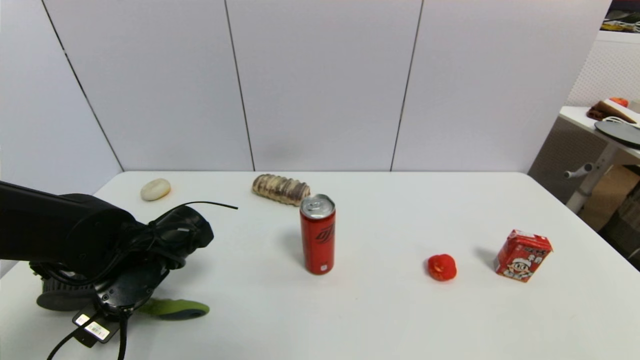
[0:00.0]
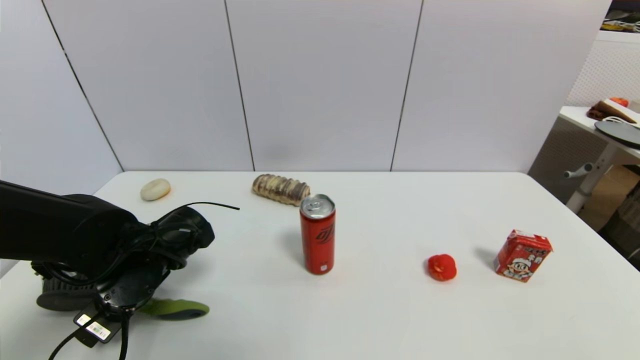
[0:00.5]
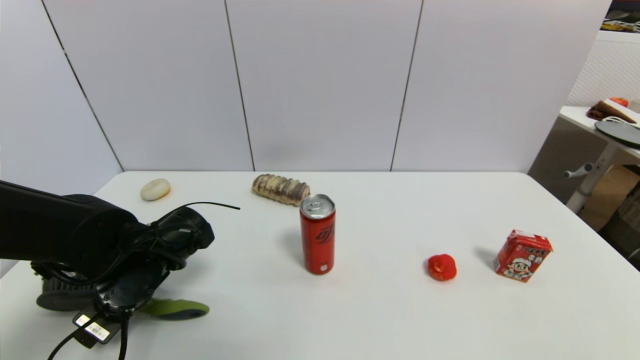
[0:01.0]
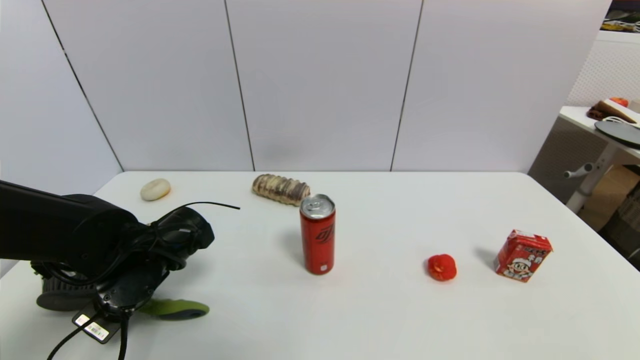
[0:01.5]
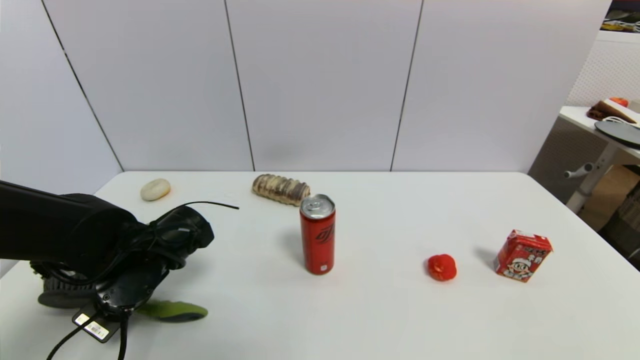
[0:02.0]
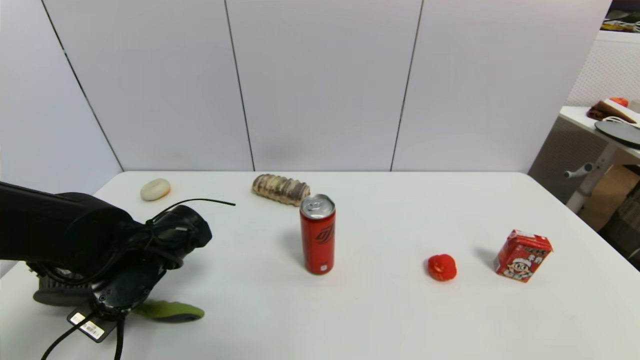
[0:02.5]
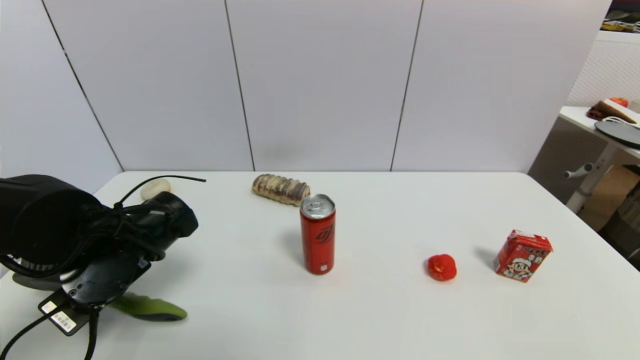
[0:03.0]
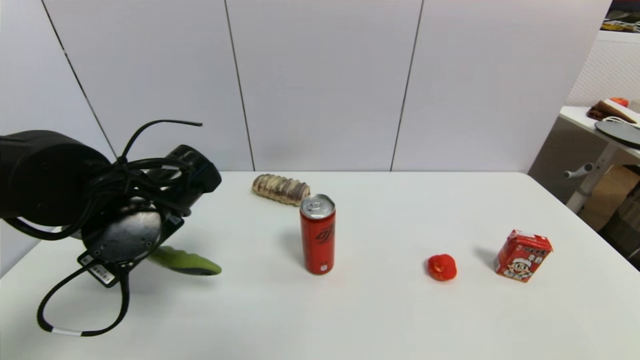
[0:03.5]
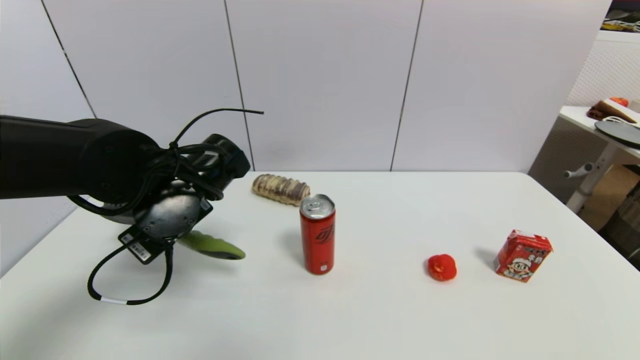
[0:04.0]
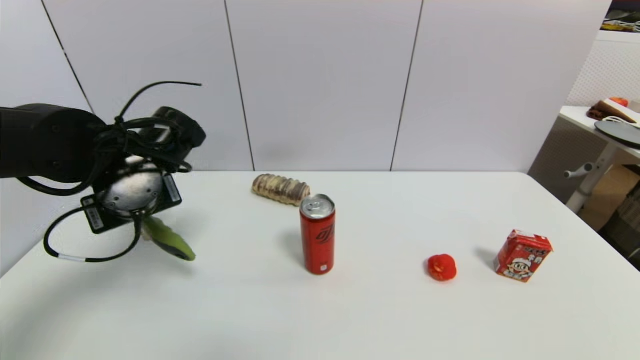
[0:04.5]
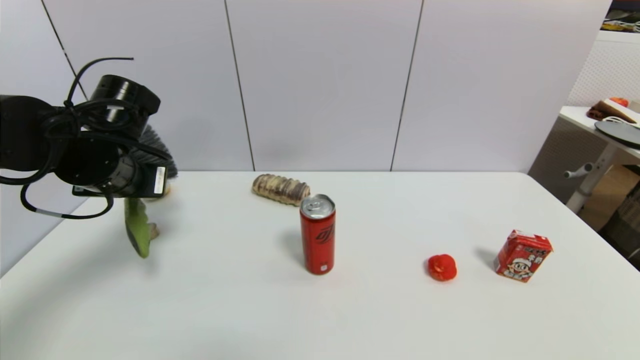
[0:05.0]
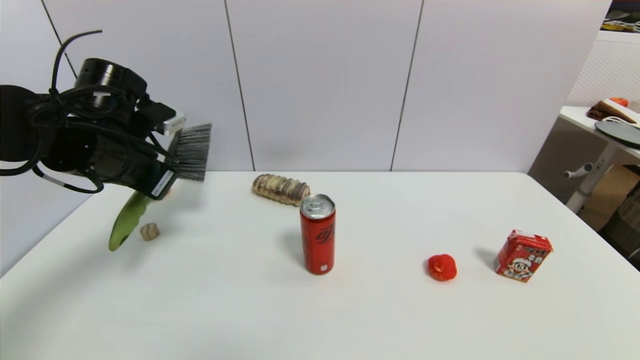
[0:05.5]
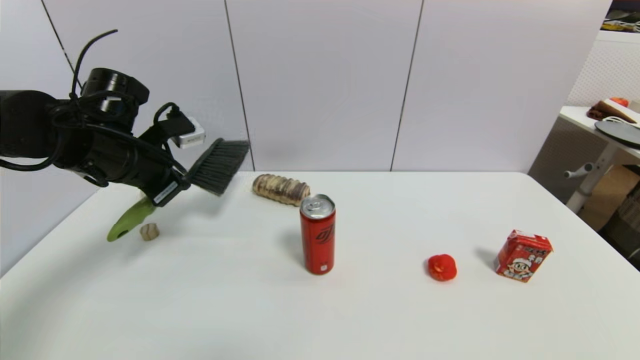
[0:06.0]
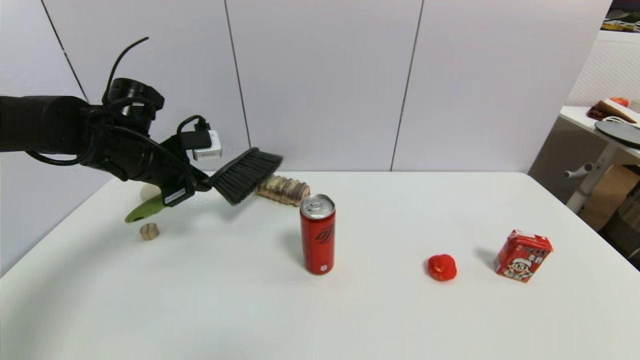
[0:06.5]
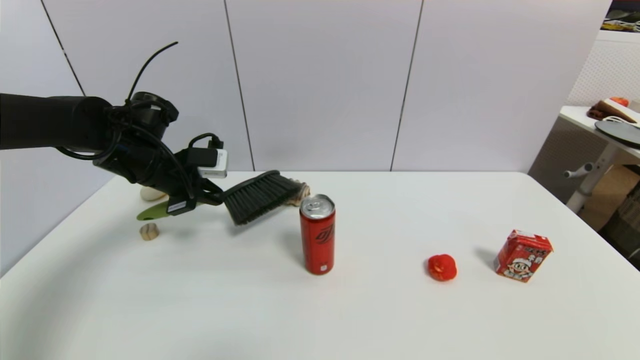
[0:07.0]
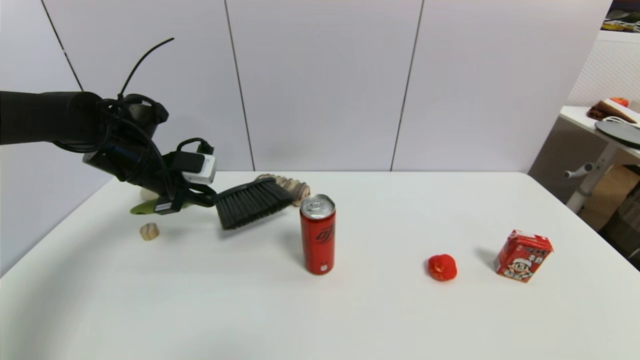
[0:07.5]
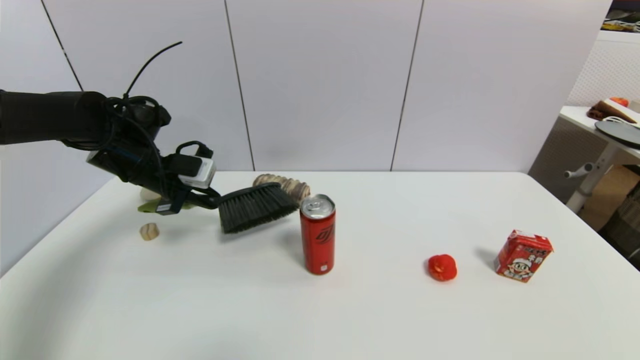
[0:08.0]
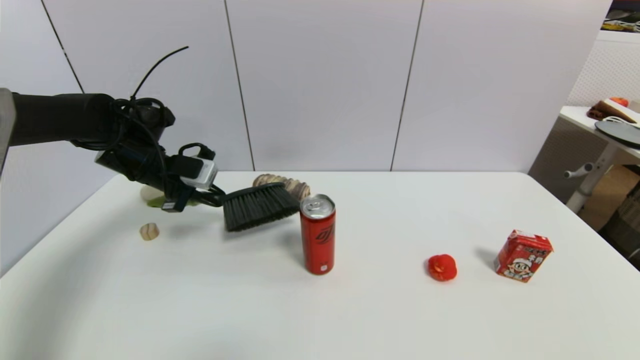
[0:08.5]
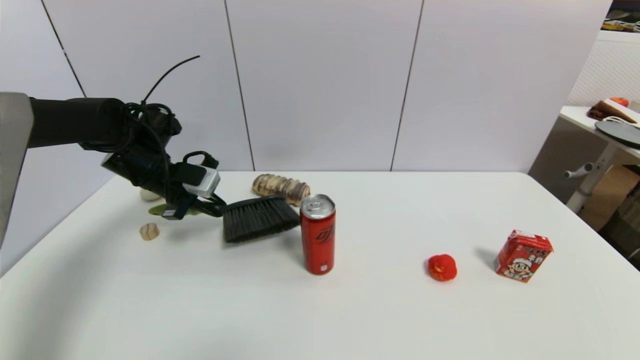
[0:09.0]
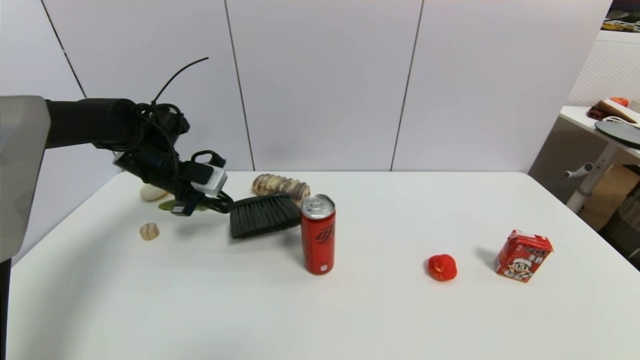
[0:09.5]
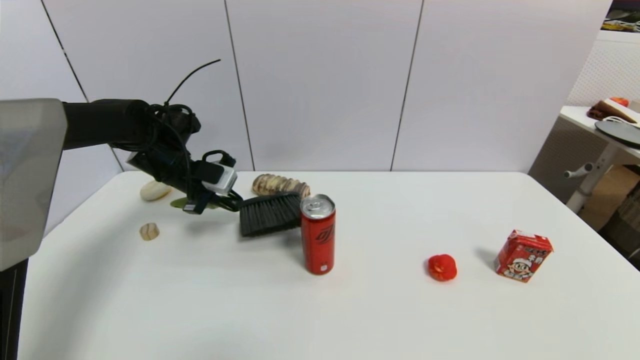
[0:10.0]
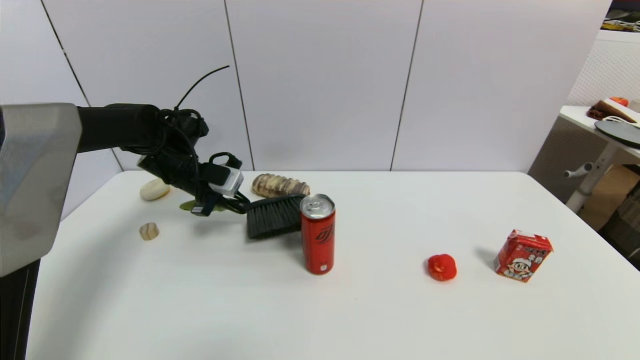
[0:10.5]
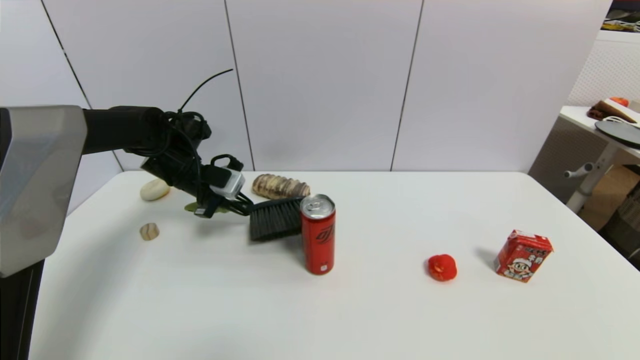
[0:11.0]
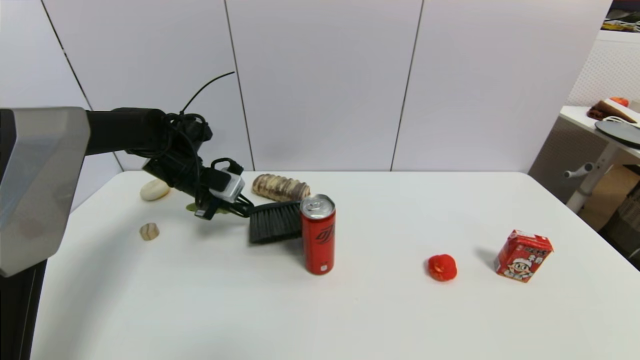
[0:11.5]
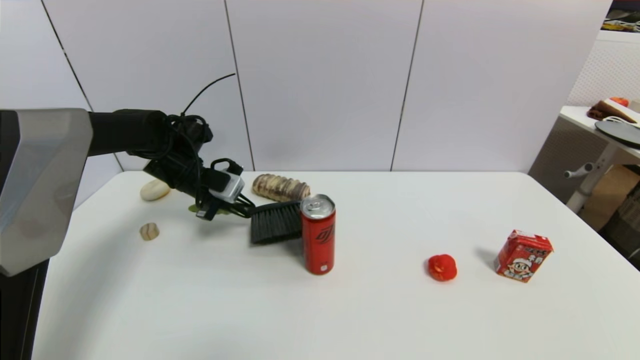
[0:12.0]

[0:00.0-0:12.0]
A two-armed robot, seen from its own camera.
Task of the whole recording: put the brush in the designated position.
Step, 0:00.0 to 0:02.5: Grasp the brush with left gripper.
0:00.0 to 0:02.0: The left gripper closes.
0:02.0 to 0:04.0: The left gripper goes approximately 10 cm upward and to the right.
0:04.0 to 0:06.0: The left gripper travels to the left and forward by roughly 10 cm.
0:06.0 to 0:08.0: The left gripper heads forward, covering approximately 5 cm.
0:08.0 to 0:10.0: The grippers make only small movements.
0:10.0 to 0:12.0: The grippers make only small movements.

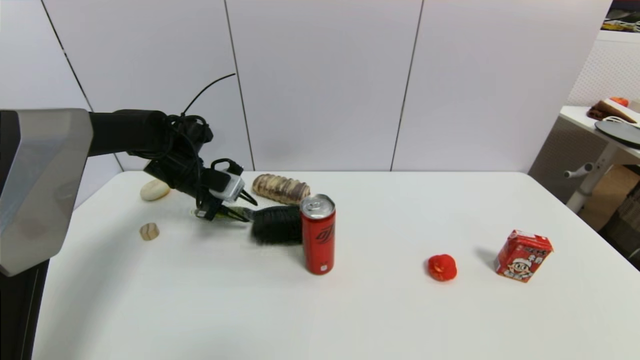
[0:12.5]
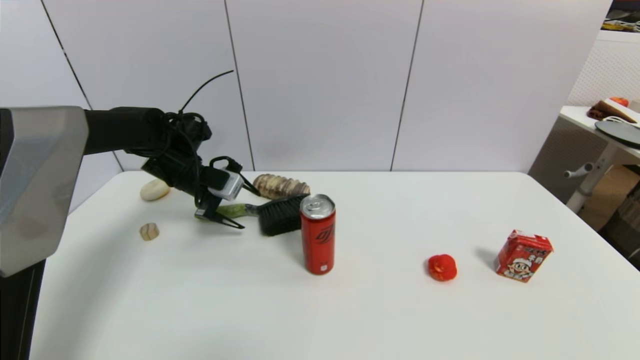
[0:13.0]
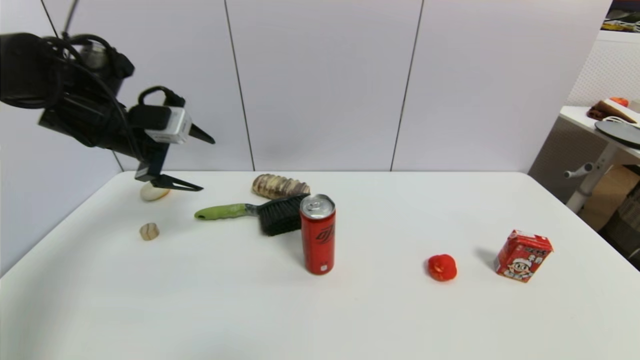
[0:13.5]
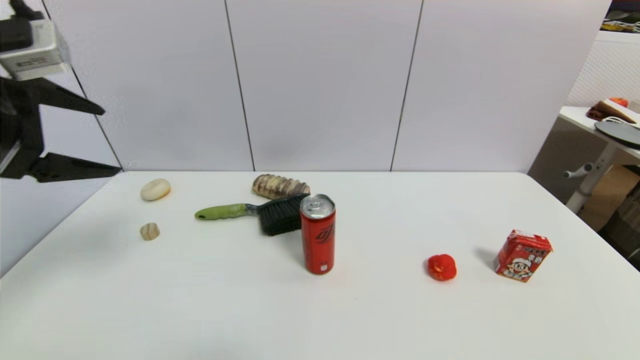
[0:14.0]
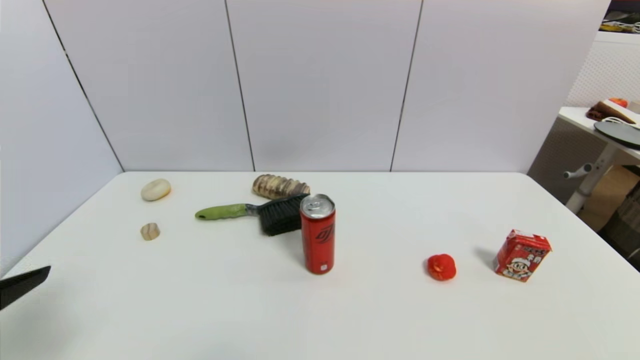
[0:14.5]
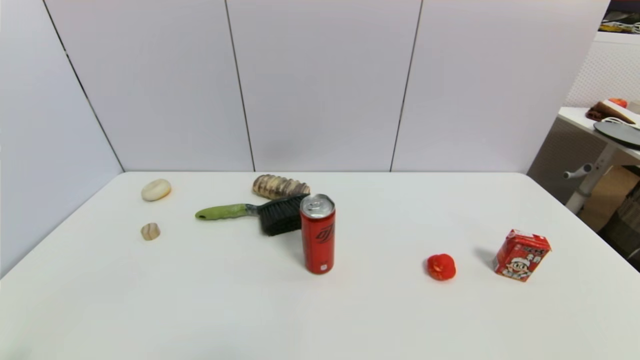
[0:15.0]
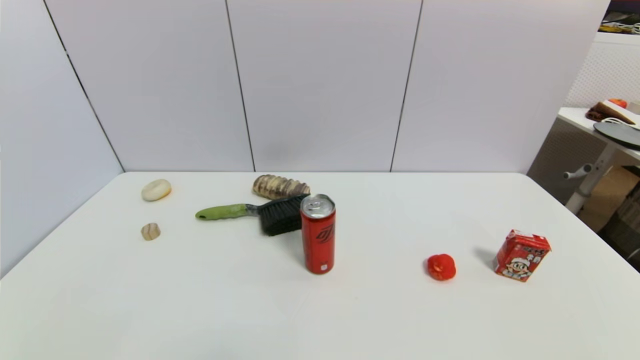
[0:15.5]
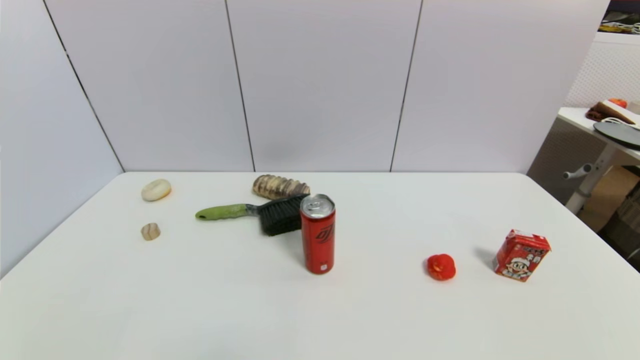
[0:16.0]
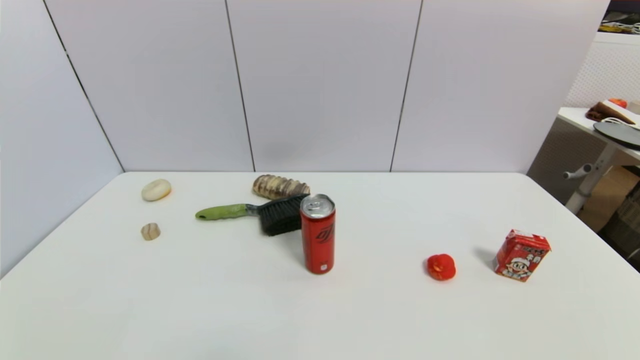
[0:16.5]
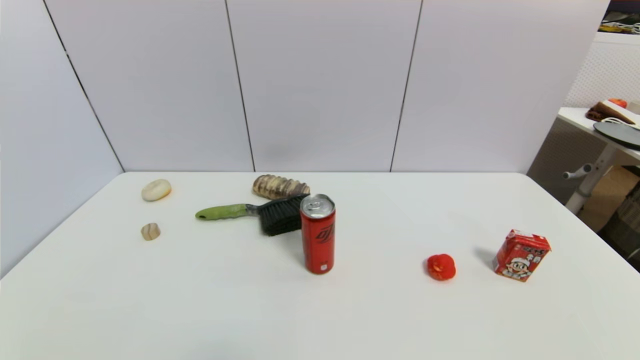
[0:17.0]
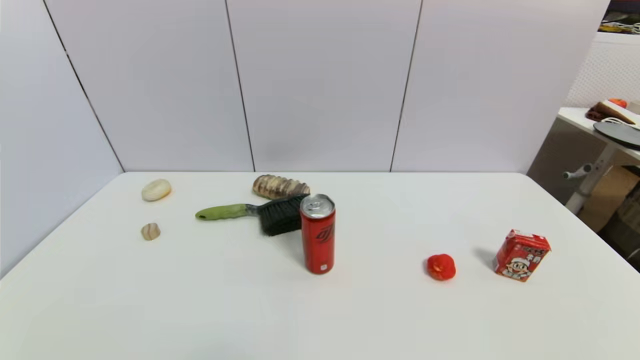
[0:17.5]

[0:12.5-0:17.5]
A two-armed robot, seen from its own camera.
Task of the whole recording: put the brush in the designated position.
0:12.5 to 0:15.0: The left gripper shifts some 40 cm backward, and opens up.

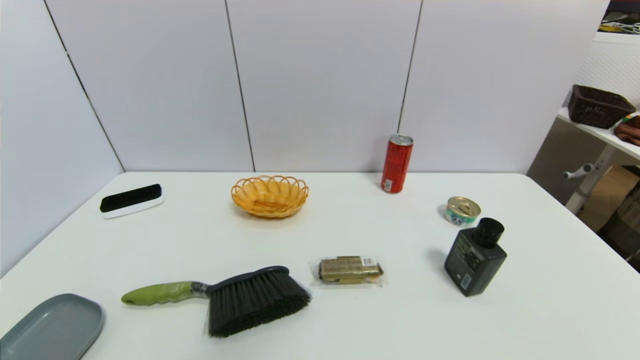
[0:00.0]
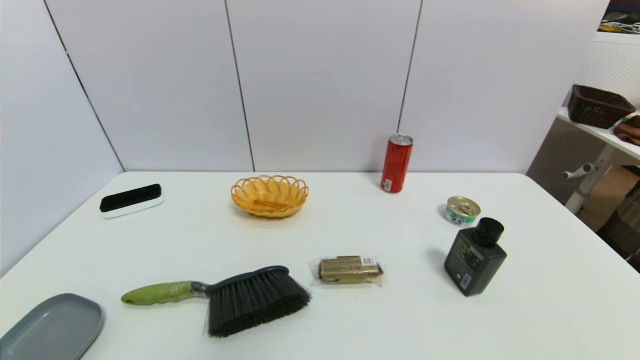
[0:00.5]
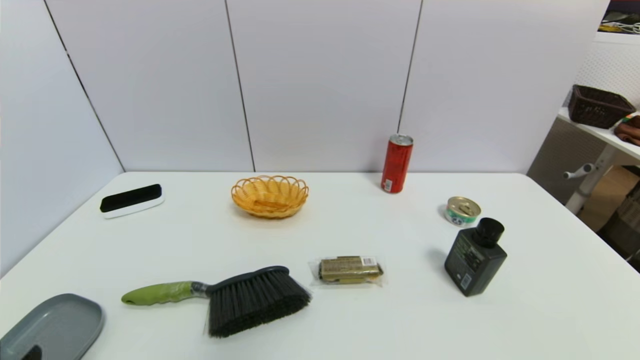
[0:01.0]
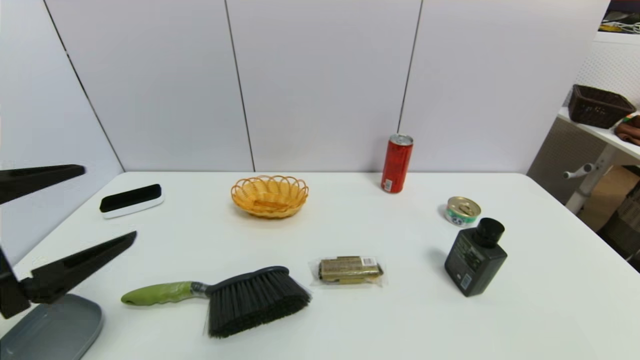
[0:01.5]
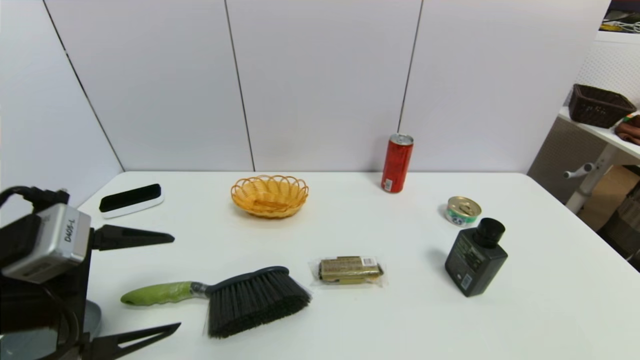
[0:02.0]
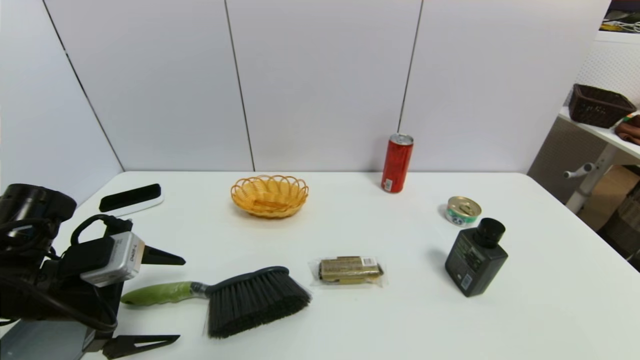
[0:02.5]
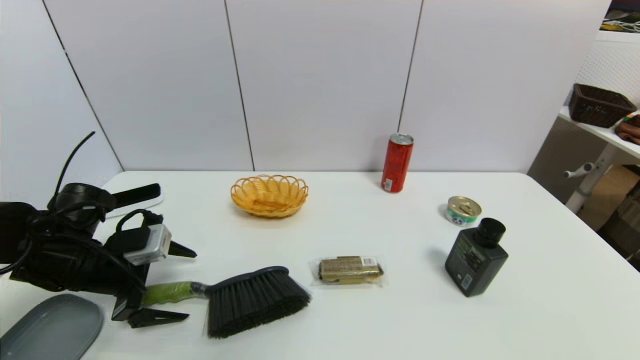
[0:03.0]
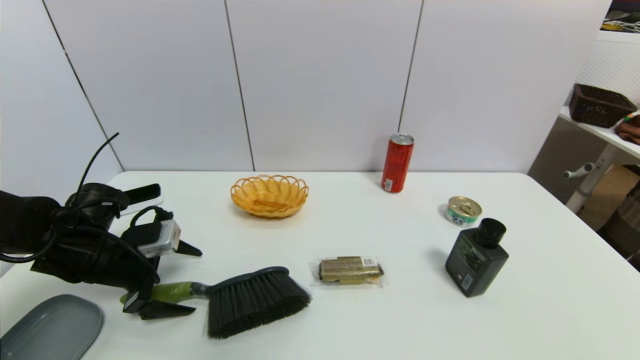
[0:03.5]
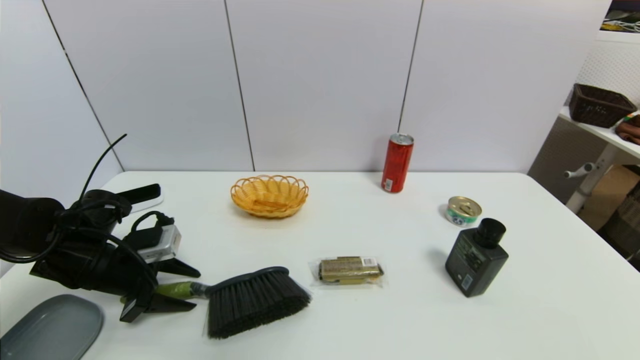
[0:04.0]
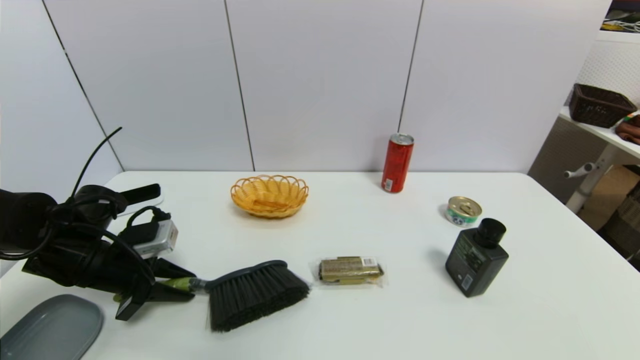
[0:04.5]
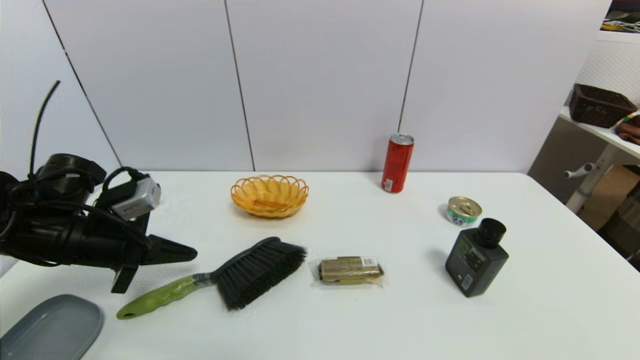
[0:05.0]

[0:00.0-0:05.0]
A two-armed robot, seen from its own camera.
Task of the whole recording: put the brush in the designated position.
0:00.0 to 0:02.5: The left gripper travels forward by roughly 20 cm.
0:02.5 to 0:05.0: The left gripper travels forward by approximately 5 cm, and closes its fingers.
